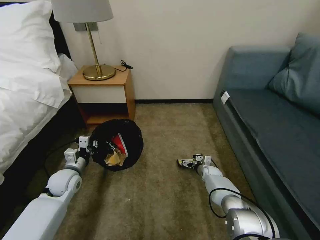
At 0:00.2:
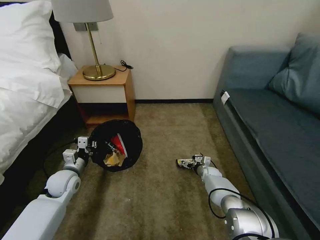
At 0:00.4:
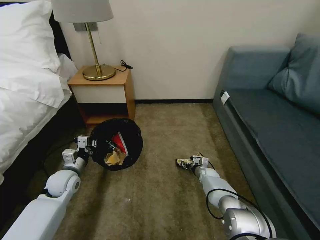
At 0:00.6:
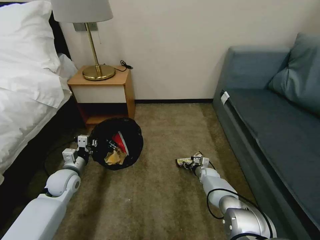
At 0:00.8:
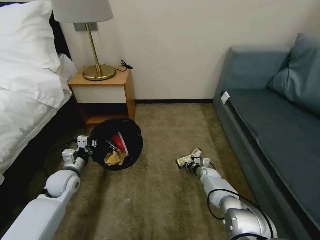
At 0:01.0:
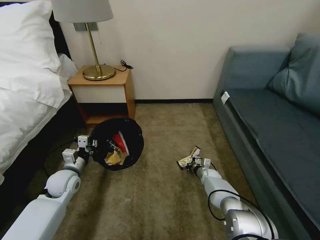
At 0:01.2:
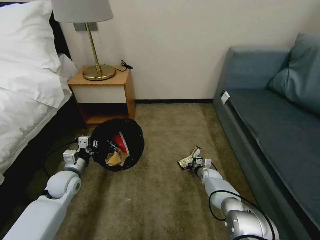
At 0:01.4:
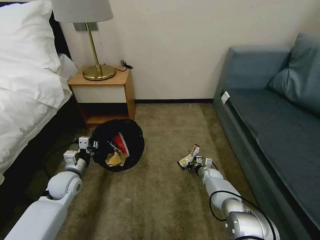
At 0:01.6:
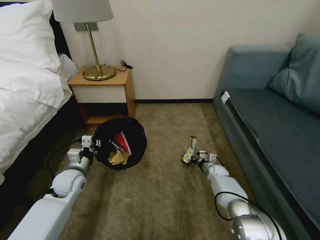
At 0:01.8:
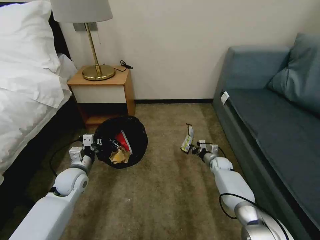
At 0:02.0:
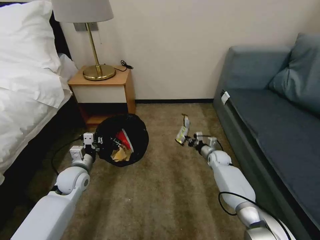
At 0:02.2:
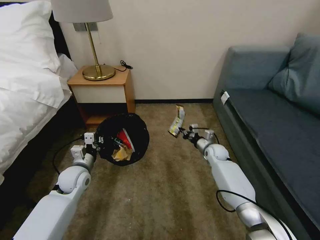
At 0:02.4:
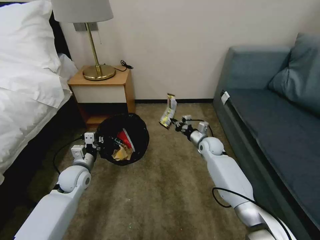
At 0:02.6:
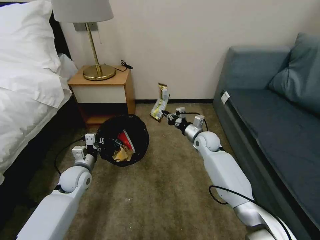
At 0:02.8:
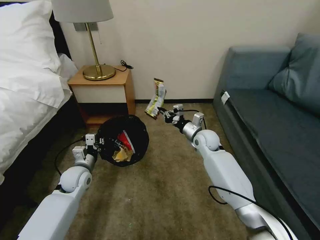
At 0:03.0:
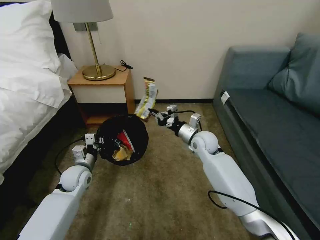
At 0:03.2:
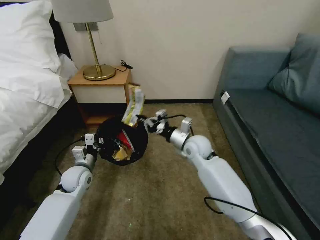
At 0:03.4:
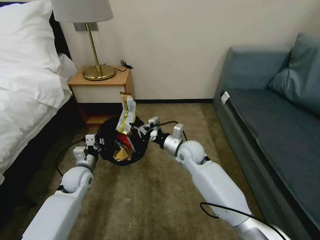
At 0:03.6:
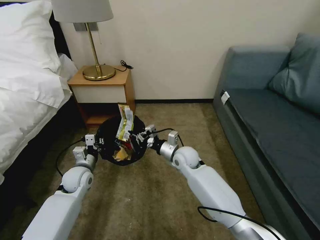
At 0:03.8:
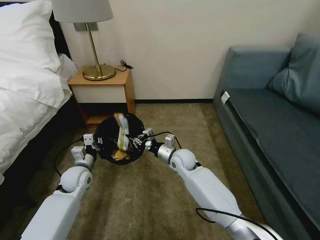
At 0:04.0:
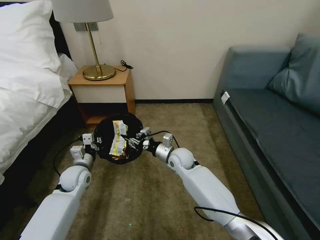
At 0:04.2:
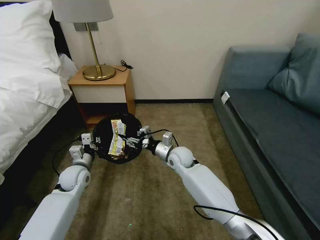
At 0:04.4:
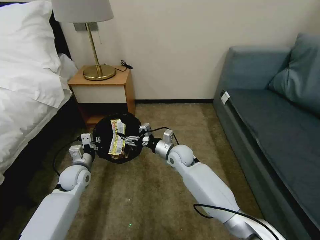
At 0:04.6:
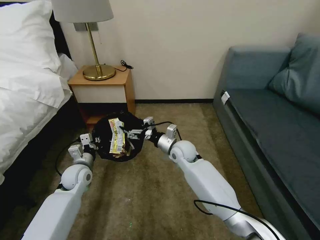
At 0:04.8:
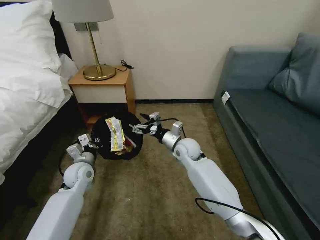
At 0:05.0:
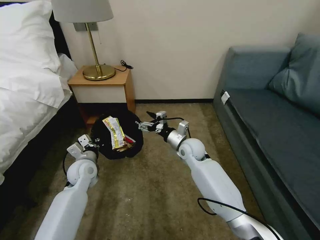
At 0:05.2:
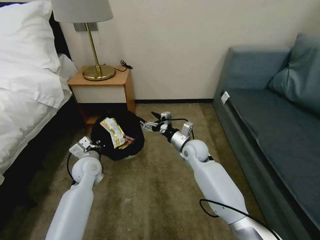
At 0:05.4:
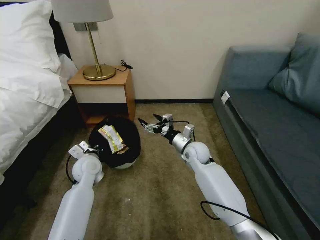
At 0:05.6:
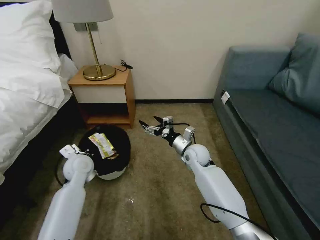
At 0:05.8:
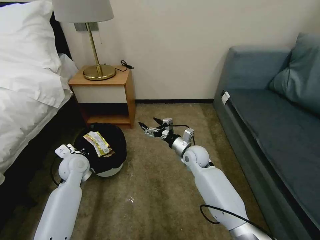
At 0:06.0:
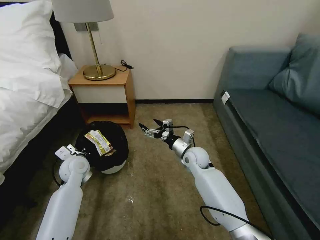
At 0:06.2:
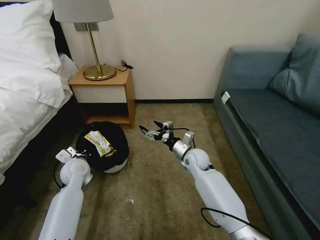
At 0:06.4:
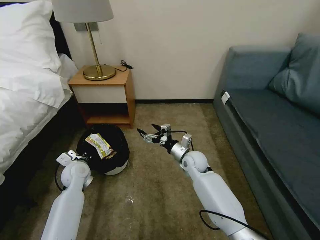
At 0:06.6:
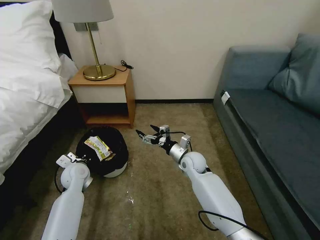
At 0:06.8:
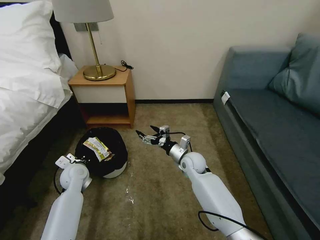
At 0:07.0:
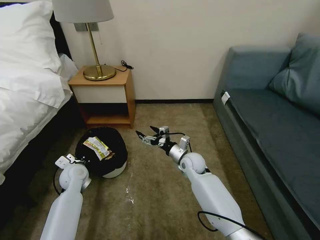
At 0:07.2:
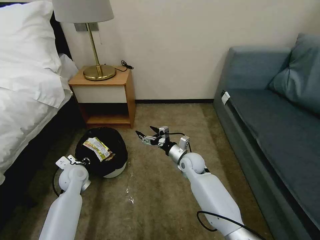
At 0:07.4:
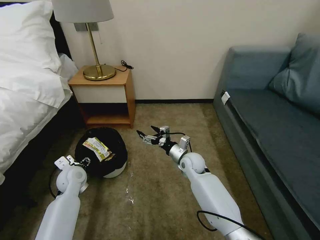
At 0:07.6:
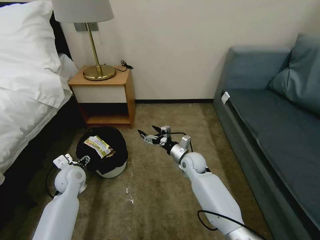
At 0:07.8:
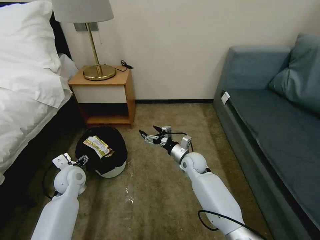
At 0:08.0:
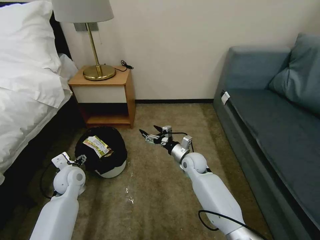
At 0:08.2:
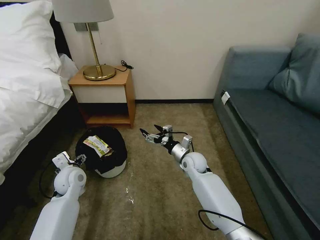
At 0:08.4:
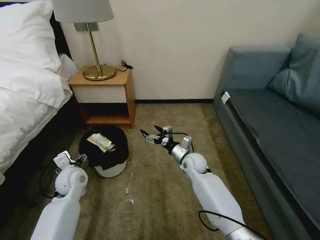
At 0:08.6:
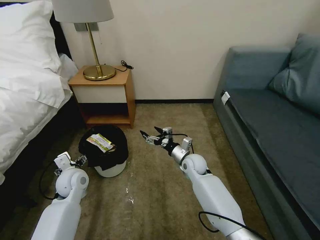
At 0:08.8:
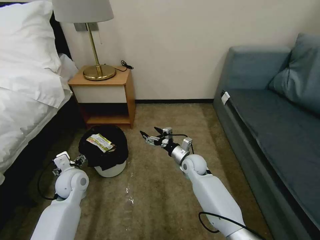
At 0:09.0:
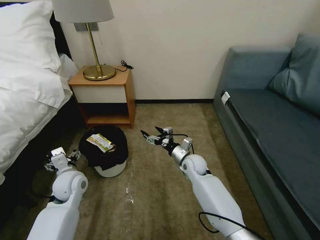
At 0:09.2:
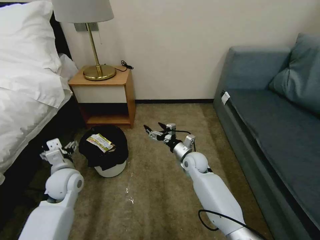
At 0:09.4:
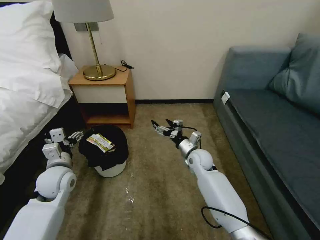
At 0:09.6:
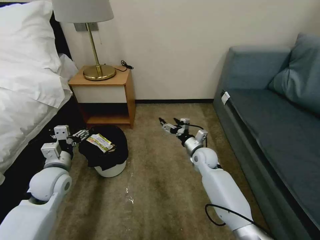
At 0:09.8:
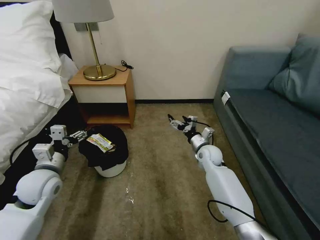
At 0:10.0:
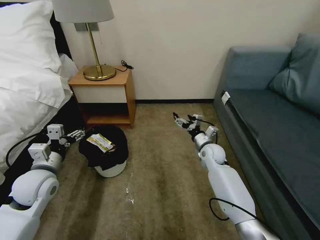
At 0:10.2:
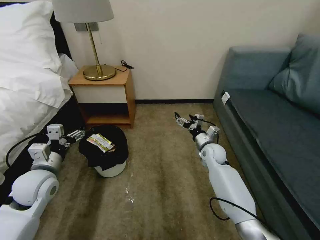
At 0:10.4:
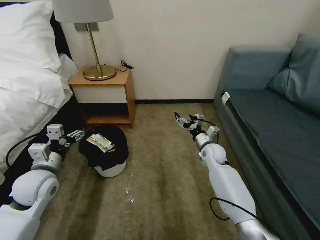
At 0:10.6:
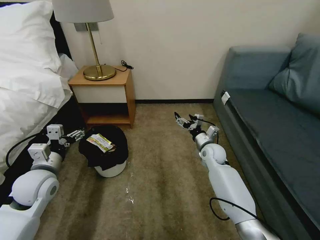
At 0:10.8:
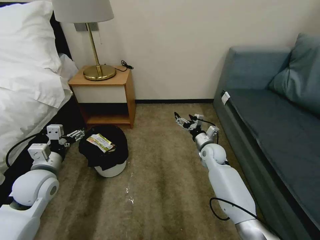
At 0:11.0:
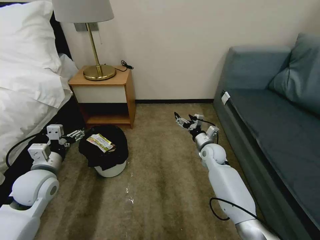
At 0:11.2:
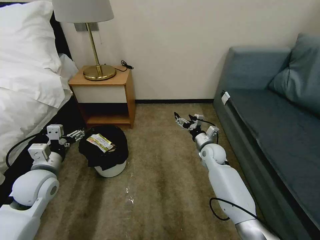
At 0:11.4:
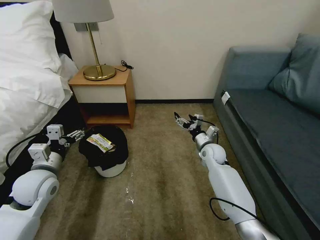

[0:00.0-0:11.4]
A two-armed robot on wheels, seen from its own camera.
Task of the whole recording: Pick up the trash bin, then pick up the garbage on the floor and place it into the trash bin.
0:00.0 to 0:01.4: The right gripper closes up.
0:01.4 to 0:02.8: The right gripper heads upward, covering approximately 25 cm.
0:02.8 to 0:04.2: The right gripper is displaced to the left and backward by approximately 15 cm, and opens.
0:04.2 to 0:05.6: The right gripper shifts approximately 5 cm to the right, and opens its fingers. Meanwhile the left gripper shifts by some 5 cm.
0:05.6 to 0:07.2: The left gripper is displaced downward by some 5 cm, and opens its fingers.
0:07.2 to 0:08.6: The left gripper opens up.
0:08.6 to 0:10.0: The left gripper goes roughly 10 cm upward and backward. The right gripper goes approximately 10 cm to the right.
0:10.0 to 0:11.4: Neither gripper changes place.

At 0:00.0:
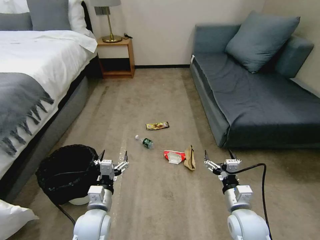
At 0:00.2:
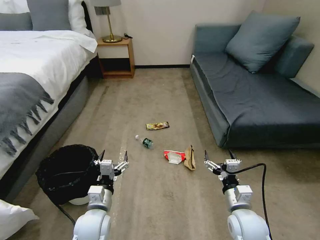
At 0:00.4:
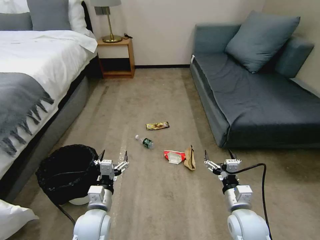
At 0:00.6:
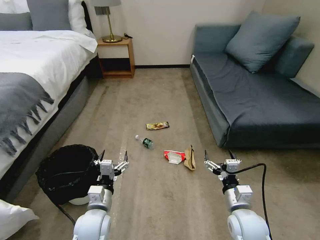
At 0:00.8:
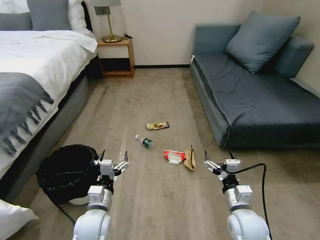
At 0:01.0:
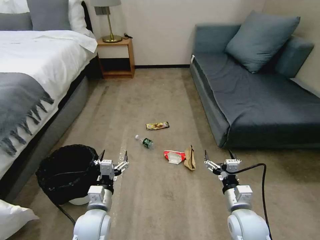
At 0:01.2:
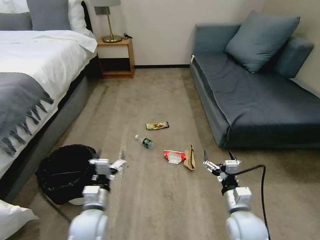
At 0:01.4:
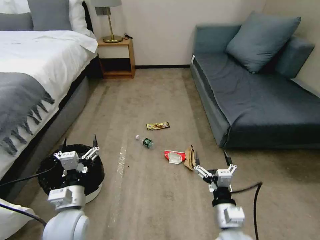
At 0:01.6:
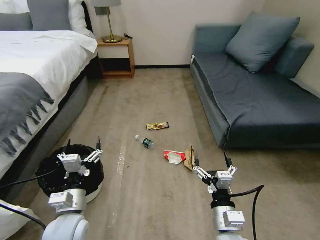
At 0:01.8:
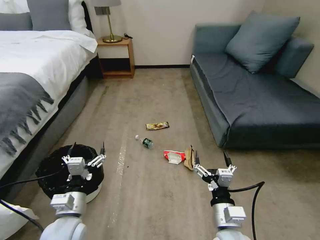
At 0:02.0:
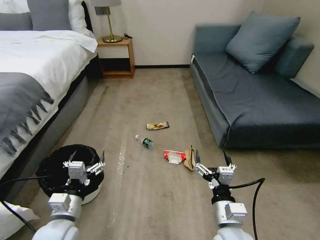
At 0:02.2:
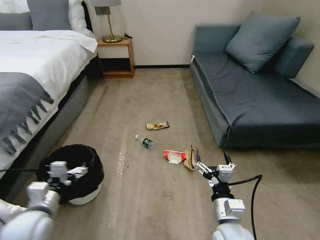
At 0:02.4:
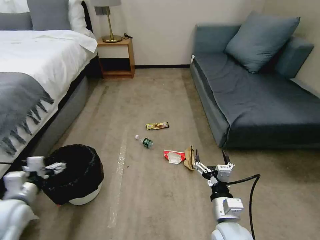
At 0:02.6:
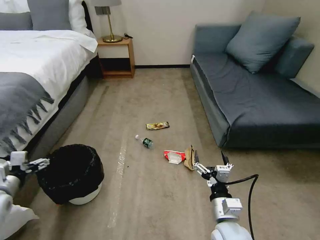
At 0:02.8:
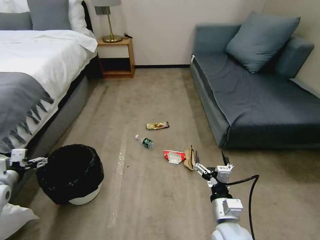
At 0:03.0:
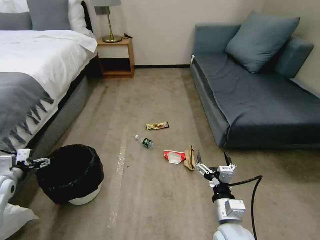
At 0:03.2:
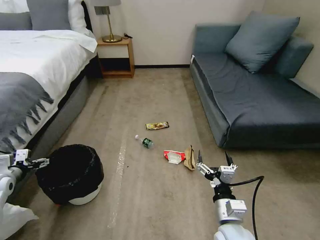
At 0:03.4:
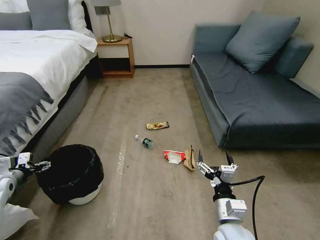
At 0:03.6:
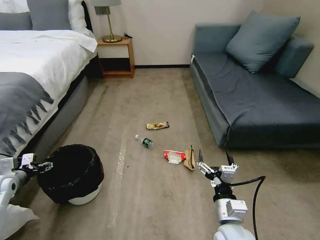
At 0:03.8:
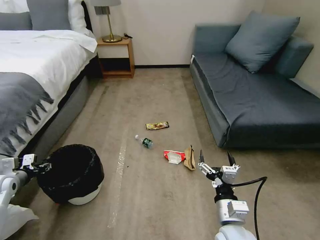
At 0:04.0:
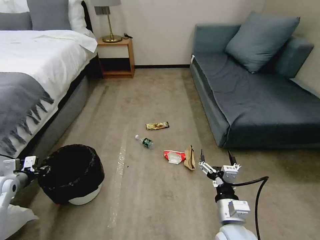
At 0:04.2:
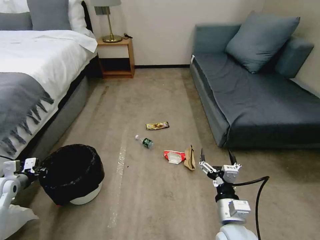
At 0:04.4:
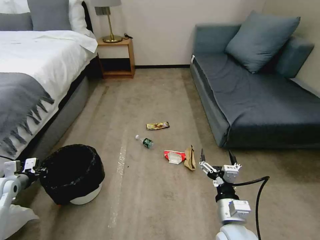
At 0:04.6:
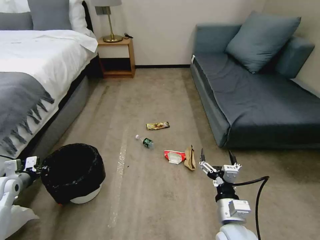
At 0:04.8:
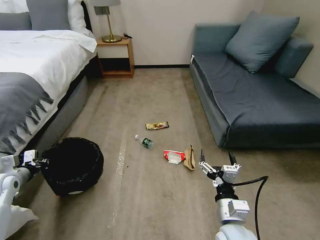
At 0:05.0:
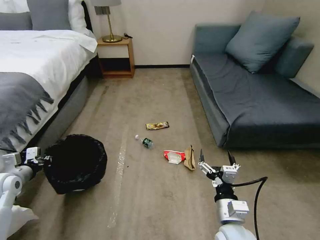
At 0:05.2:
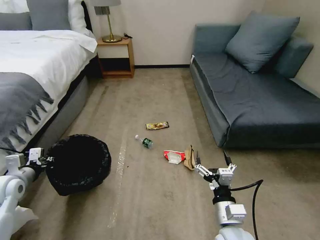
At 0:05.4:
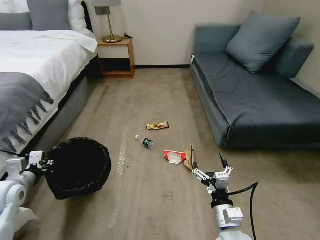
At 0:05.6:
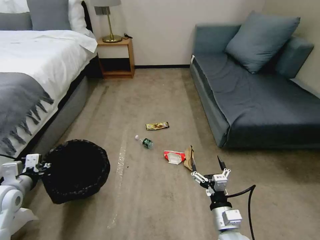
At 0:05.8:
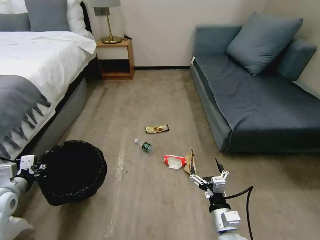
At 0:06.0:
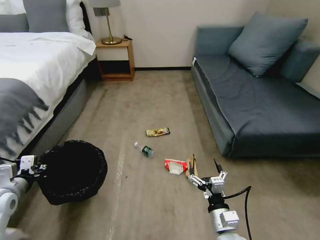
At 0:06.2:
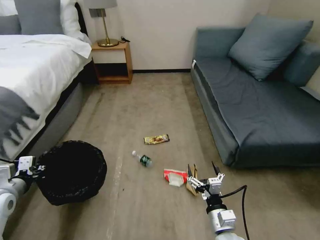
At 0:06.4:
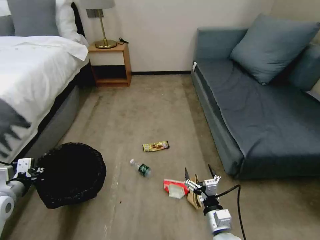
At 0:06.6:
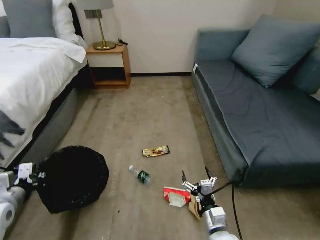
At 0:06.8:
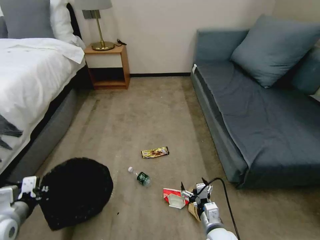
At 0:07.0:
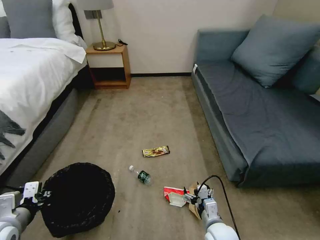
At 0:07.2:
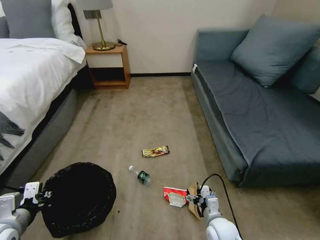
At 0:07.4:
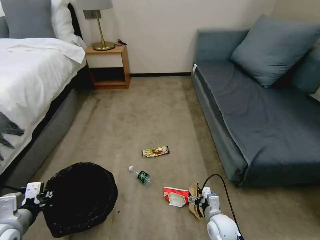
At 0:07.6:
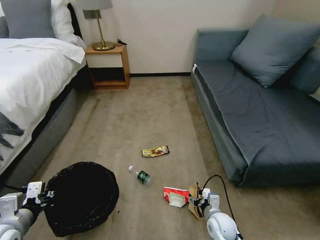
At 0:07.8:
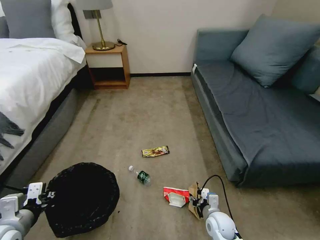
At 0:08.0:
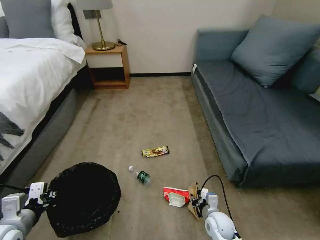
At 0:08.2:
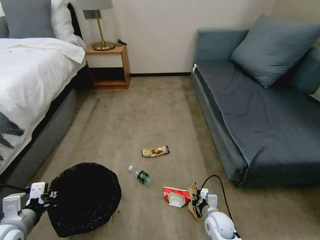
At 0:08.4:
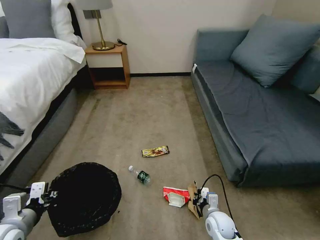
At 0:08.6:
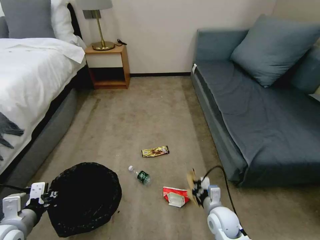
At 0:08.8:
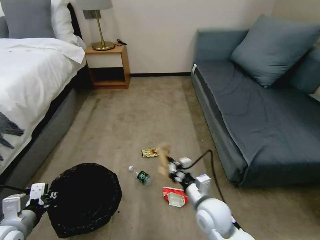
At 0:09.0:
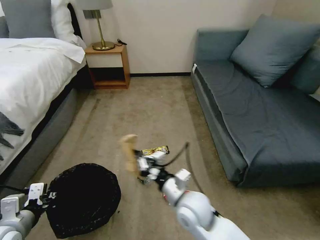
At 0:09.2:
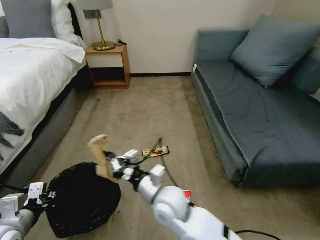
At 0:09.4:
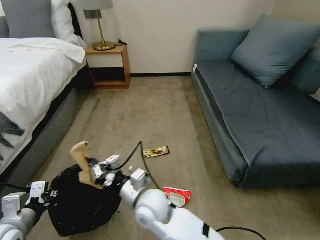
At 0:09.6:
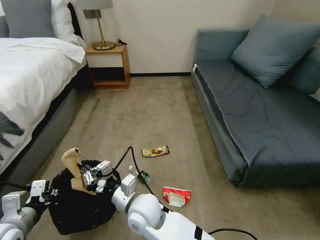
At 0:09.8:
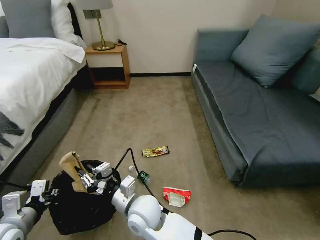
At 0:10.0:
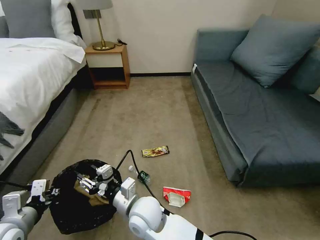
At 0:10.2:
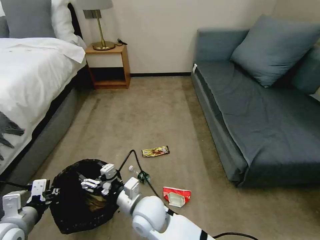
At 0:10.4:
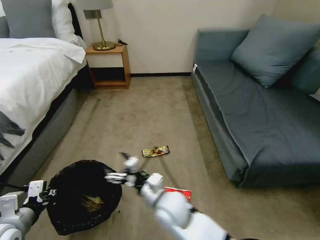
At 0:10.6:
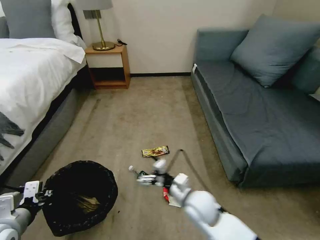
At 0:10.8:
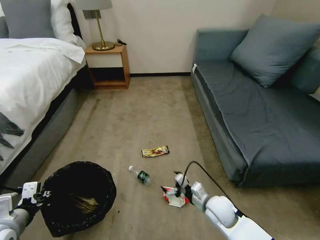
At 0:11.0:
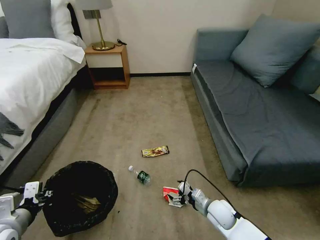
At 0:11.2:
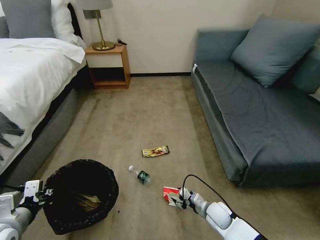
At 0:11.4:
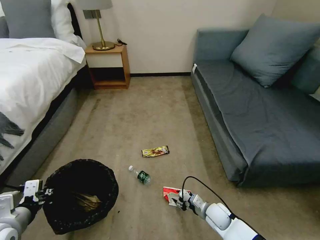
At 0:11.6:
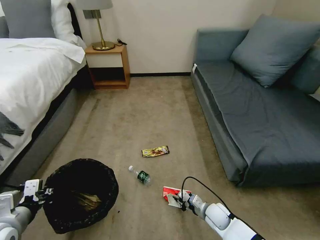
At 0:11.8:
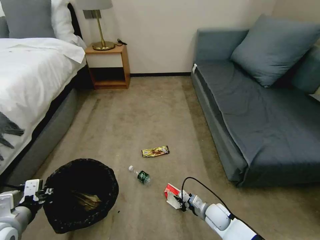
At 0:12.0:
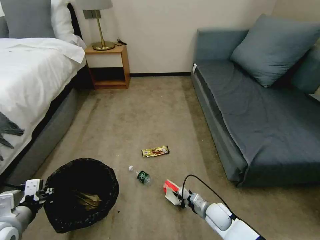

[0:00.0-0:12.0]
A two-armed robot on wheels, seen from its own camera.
Task of the whole recording: Pick up the trash bin, then pick up the garbage on the floor and place it into the trash bin.
0:01.6 to 0:03.0: The left gripper travels to the left by approximately 30 cm.
0:03.0 to 0:04.4: The left gripper closes its fingers.
0:04.4 to 0:06.0: The right gripper is displaced downward by about 5 cm, while the left gripper shifts approximately 15 cm to the right, upward and backward.
0:06.0 to 0:07.6: The left gripper heads backward and to the right, covering some 10 cm. The right gripper travels downward and forward by approximately 15 cm.
0:07.6 to 0:09.0: The right gripper goes about 25 cm upward and to the left, and closes up.
0:09.0 to 0:10.4: The right gripper shifts about 5 cm to the left, and opens.
0:10.4 to 0:12.0: The right gripper heads to the right and downward, covering some 25 cm, and closes up.
